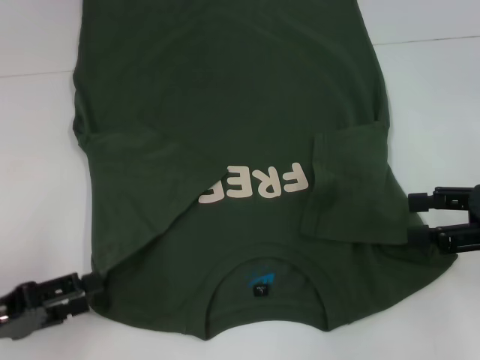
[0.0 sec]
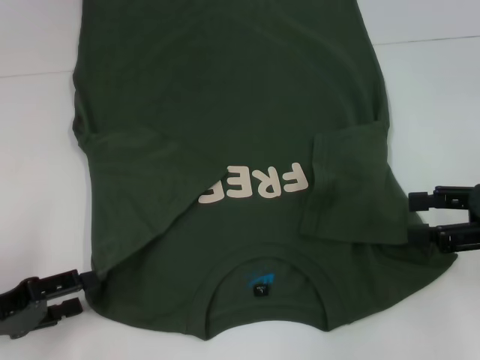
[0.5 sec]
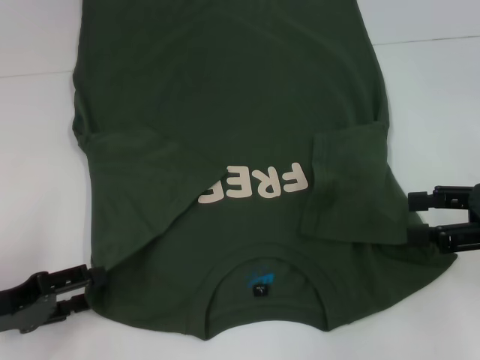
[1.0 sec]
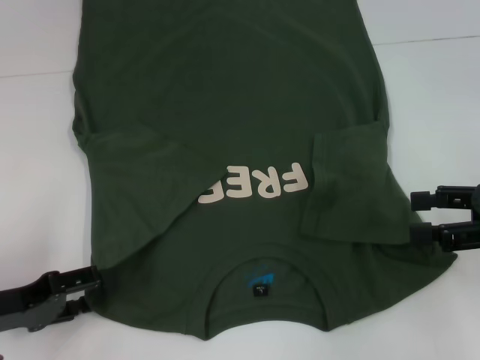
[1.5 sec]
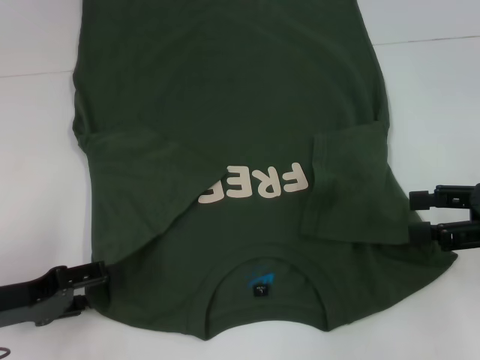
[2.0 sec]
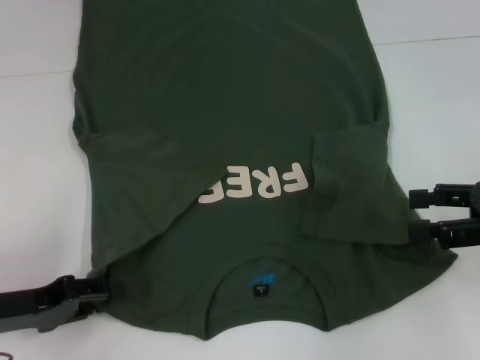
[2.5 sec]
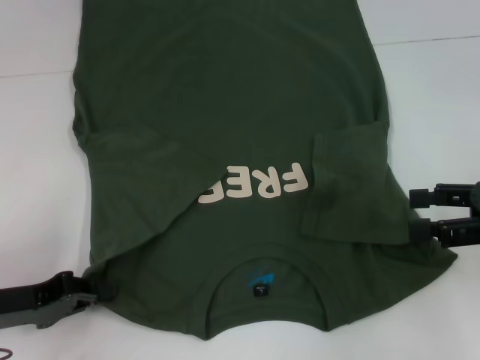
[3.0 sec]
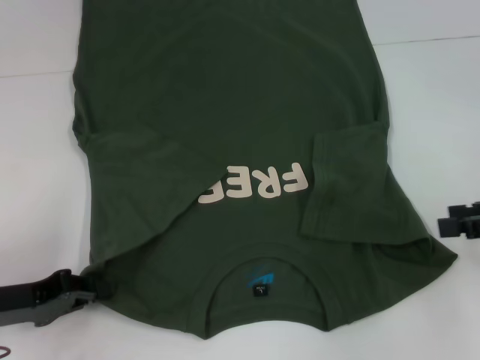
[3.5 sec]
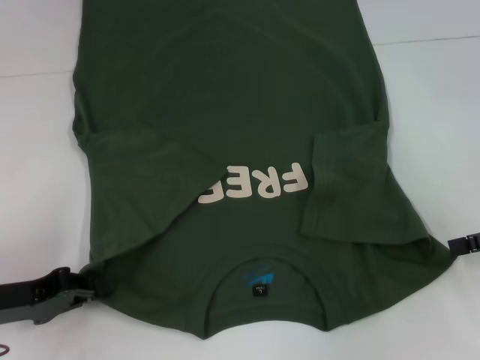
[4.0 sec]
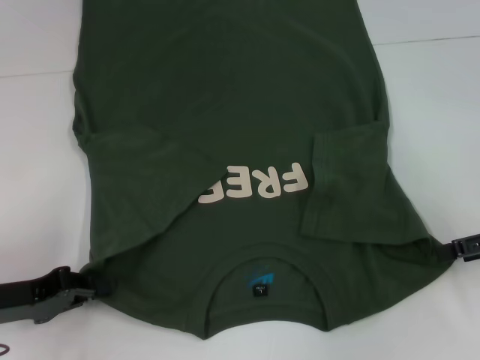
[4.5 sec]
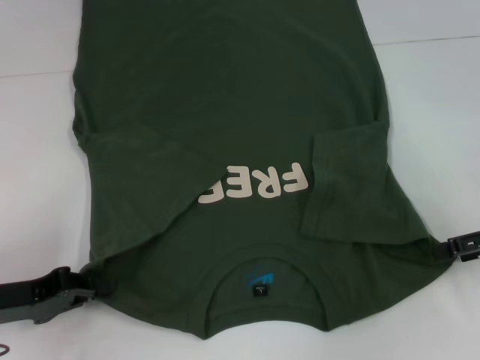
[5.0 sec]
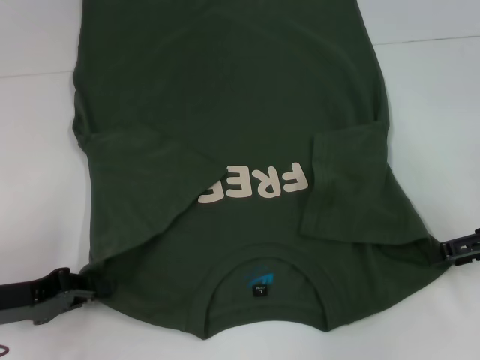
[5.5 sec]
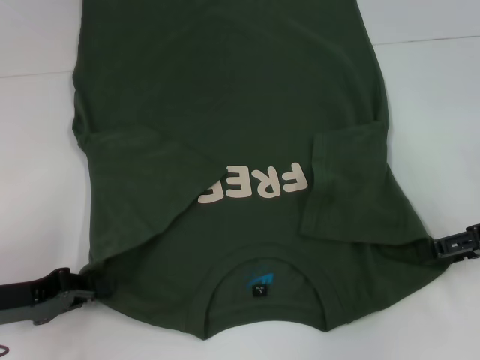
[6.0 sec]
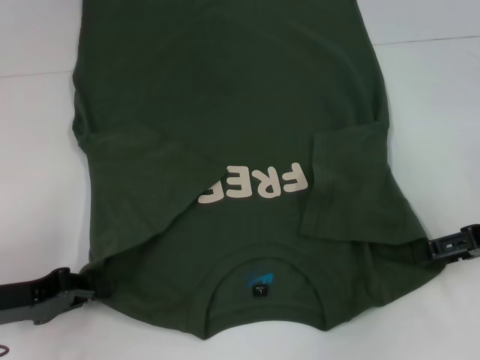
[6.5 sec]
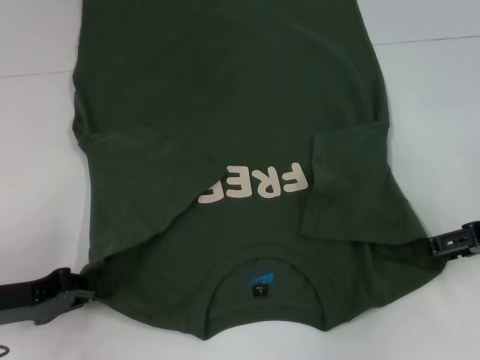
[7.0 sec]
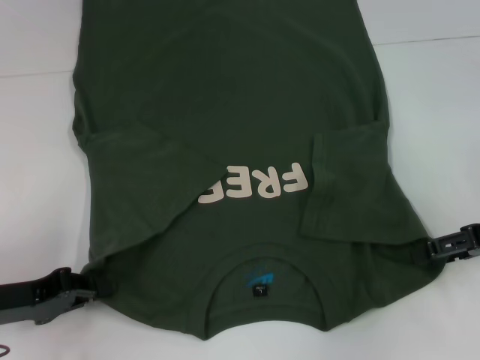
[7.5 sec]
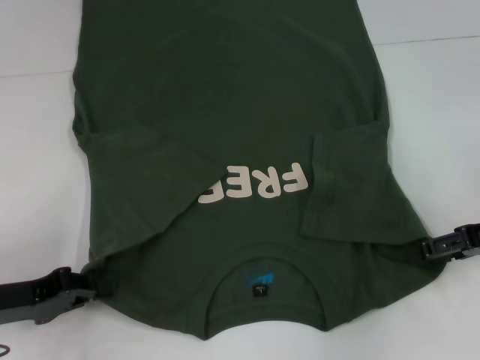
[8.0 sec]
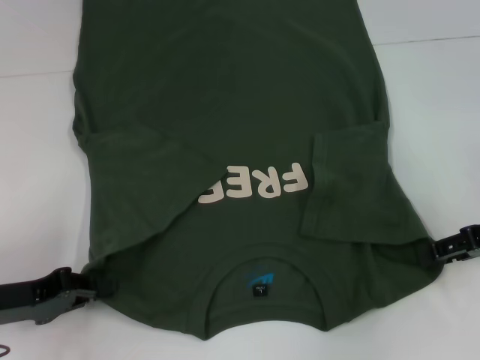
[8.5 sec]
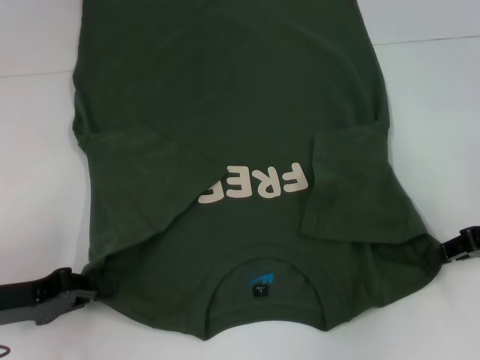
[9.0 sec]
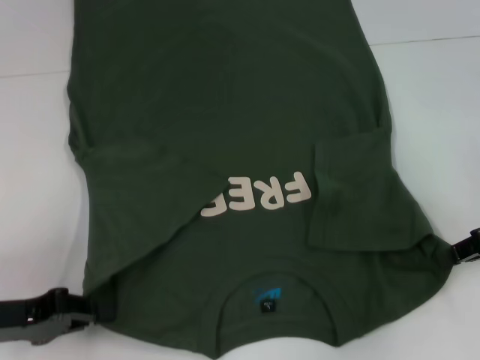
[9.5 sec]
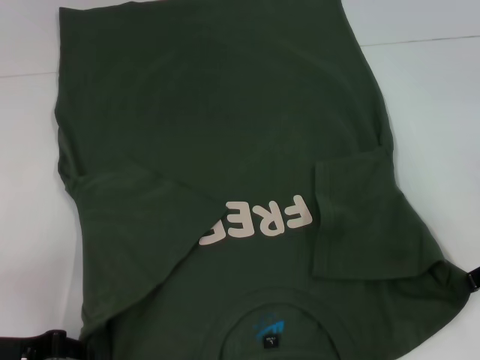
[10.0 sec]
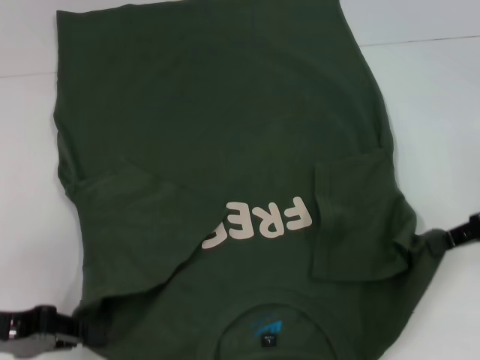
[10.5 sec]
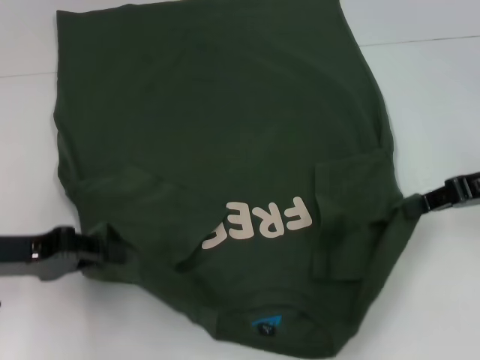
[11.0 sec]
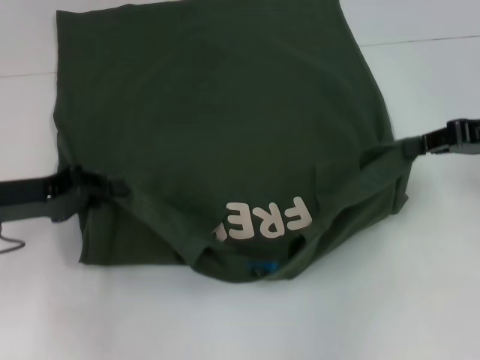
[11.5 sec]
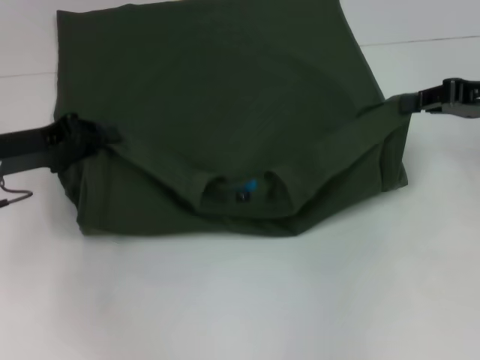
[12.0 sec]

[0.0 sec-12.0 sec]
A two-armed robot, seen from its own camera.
Step, 0.0 sec to 3.0 sec: Grab the bottom left corner with your left hand.
Step, 3.5 sec to 9.0 sec: Grab the bottom right corner with your right hand.
0.0 sec to 2.0 sec: The grippers move only a little.
2.0 sec to 4.0 sec: The left gripper closes.
6.0 sec to 8.0 sec: Both grippers stay about where they are.
8.0 sec to 10.0 sec: The right gripper closes.
10.0 sec to 12.0 sec: The left gripper moves forward, approximately 15 cm; the right gripper travels forward by about 10 cm.

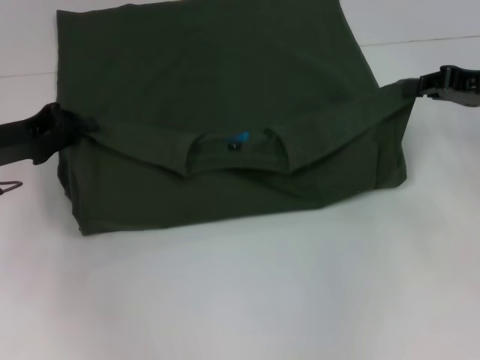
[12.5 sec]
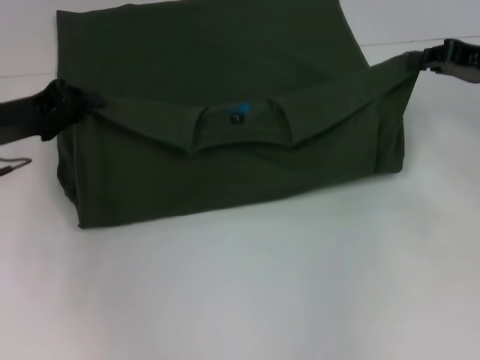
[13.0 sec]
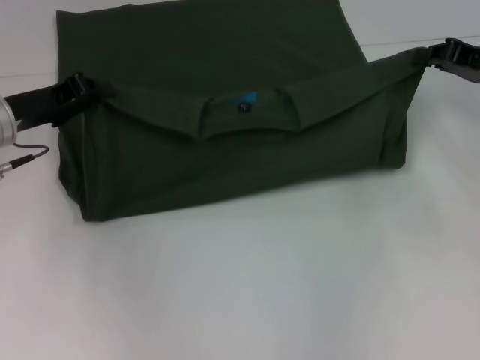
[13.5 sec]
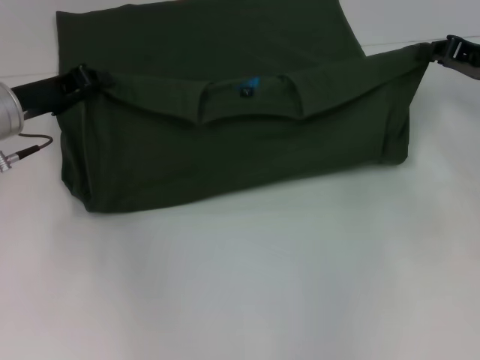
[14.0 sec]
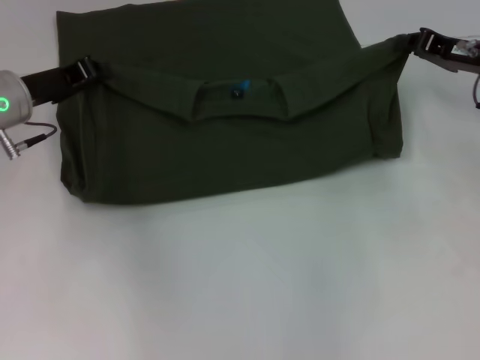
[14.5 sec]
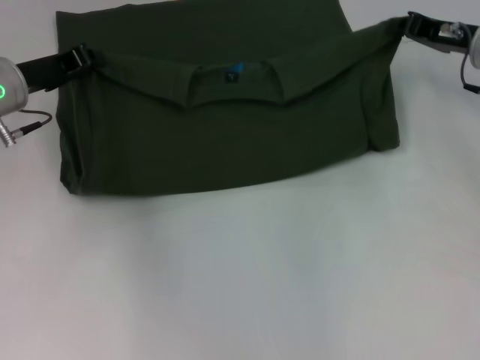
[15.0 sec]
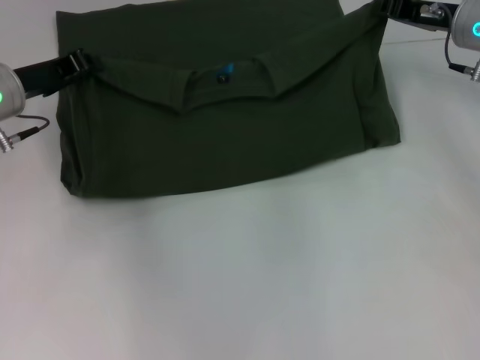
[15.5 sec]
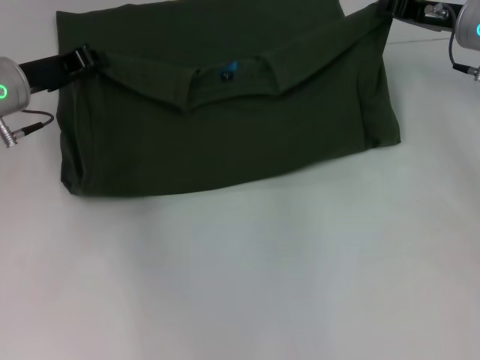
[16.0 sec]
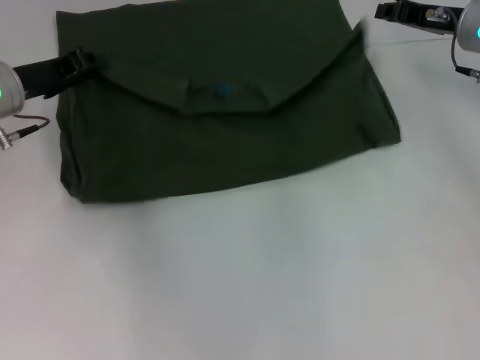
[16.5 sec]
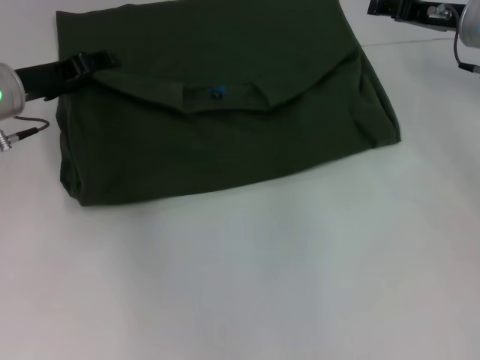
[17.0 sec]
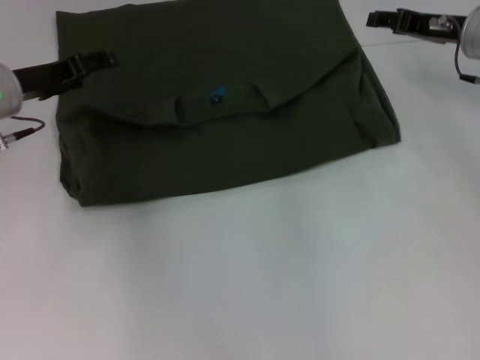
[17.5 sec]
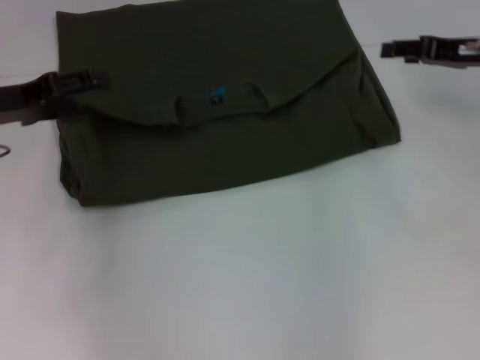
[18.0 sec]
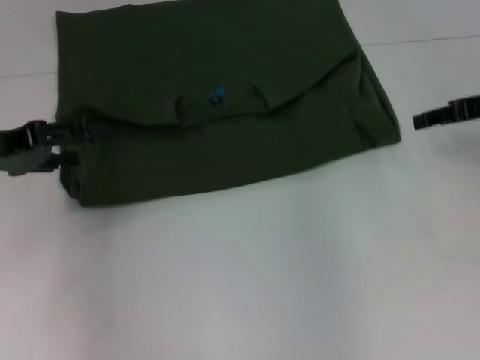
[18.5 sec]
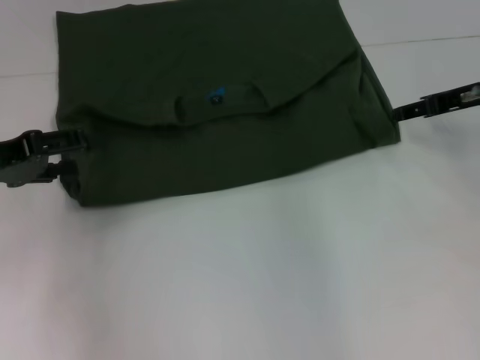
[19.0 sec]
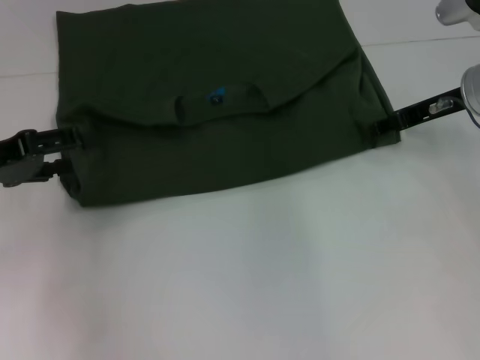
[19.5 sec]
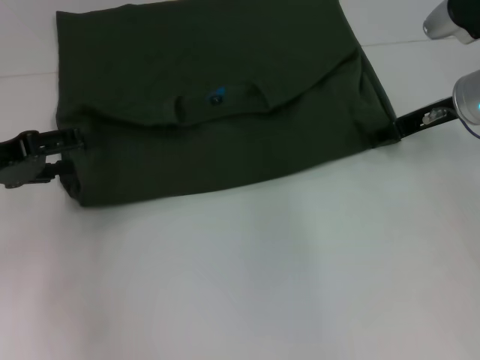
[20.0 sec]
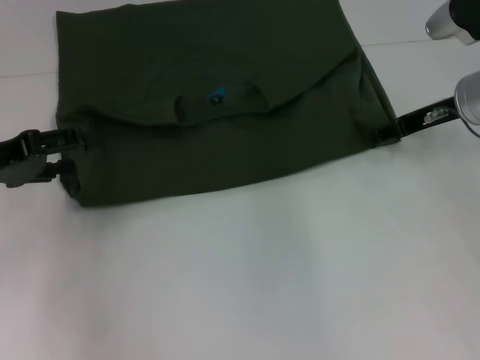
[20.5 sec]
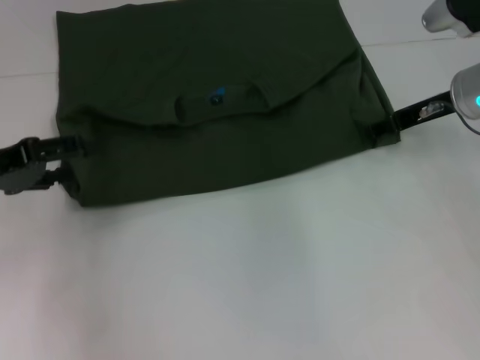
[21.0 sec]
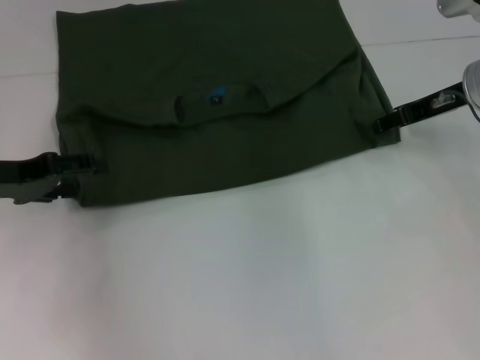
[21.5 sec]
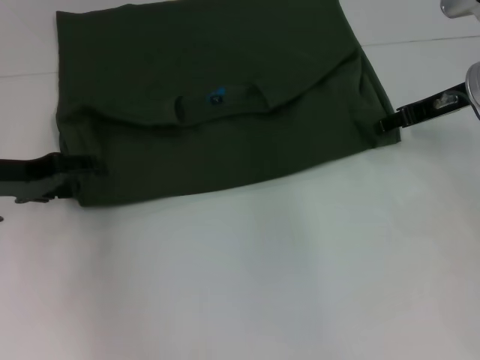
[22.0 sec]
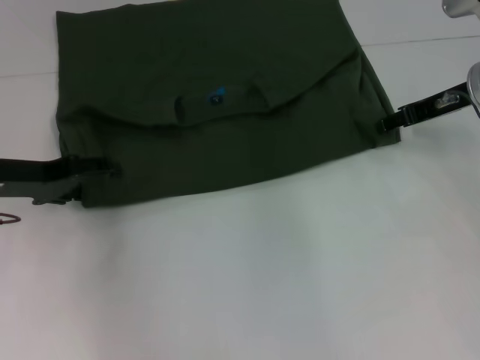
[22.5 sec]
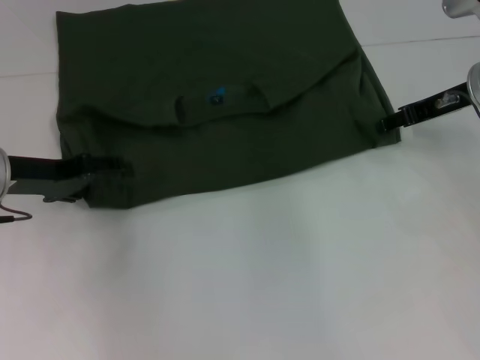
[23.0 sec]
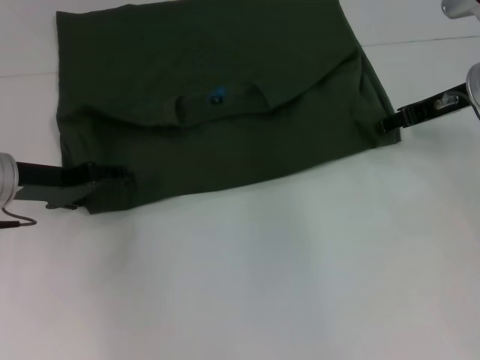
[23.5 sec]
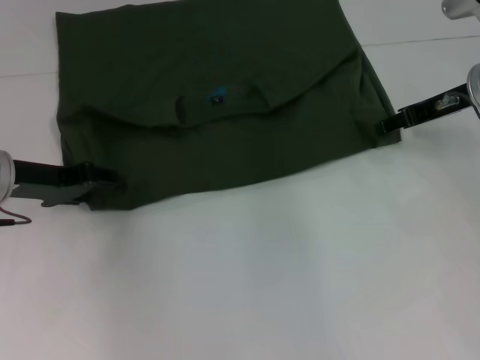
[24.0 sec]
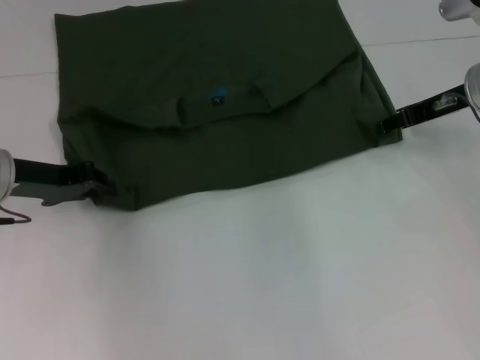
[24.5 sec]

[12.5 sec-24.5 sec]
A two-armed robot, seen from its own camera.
Step, 12.5 sec to 17.0 sec: Fold the clothes with your left hand.
Step, 12.5 sec to 17.0 sec: Fold the clothes with your right hand.
12.5 sec to 14.5 sec: The right gripper ends up roughly 5 cm from where it was; the left gripper moves forward, roughly 5 cm.
14.5 sec to 16.5 sec: The right gripper ends up approximately 5 cm from where it was.
16.5 sec to 18.5 sec: The left gripper is displaced backward and to the left by roughly 10 cm, and opens its fingers. The right gripper is displaced backward by about 5 cm, and opens its fingers.
18.5 sec to 20.5 sec: The right gripper goes about 5 cm to the left.
20.5 sec to 22.5 sec: The left gripper ends up roughly 5 cm from where it was.
22.5 sec to 24.5 sec: The left gripper closes its fingers.

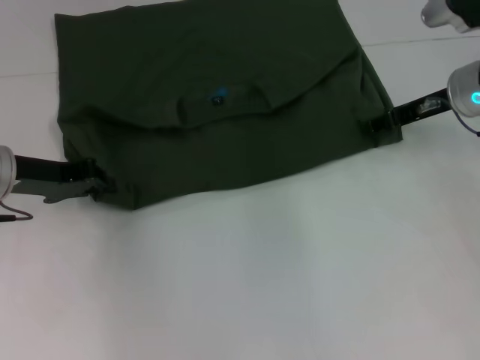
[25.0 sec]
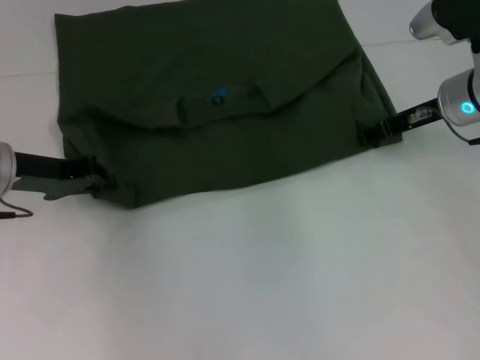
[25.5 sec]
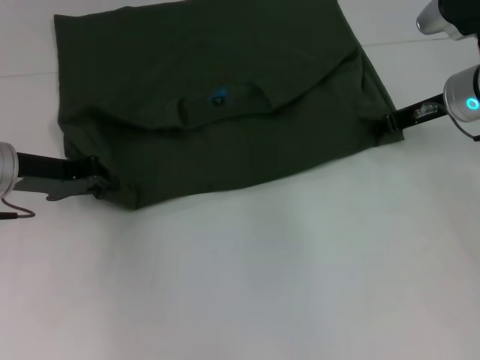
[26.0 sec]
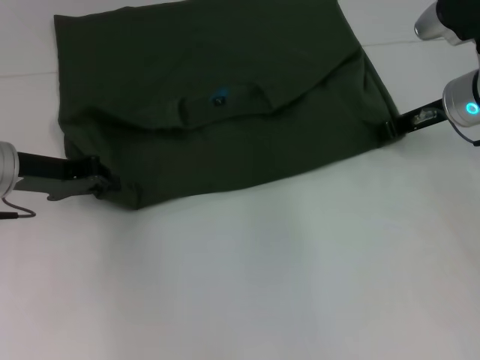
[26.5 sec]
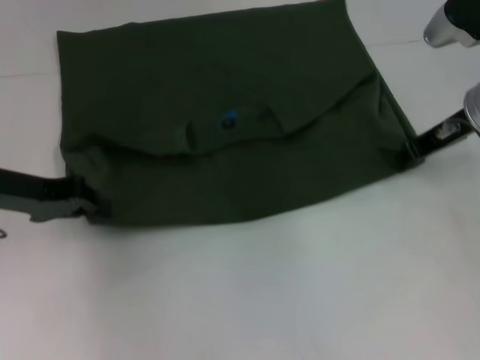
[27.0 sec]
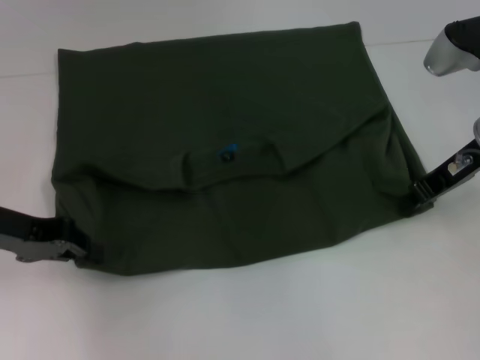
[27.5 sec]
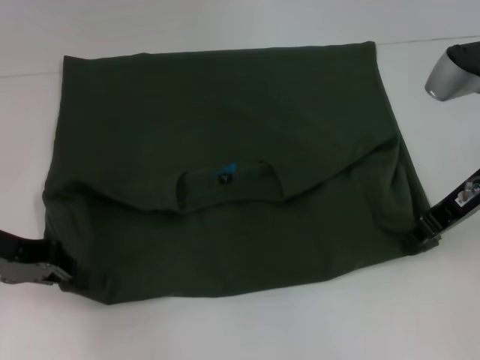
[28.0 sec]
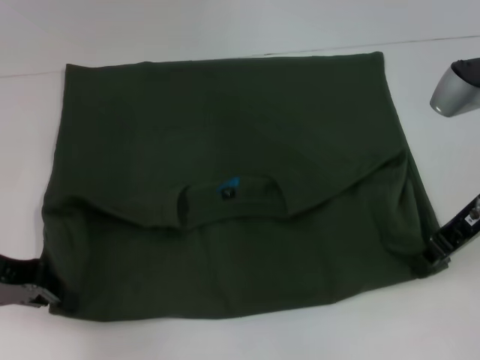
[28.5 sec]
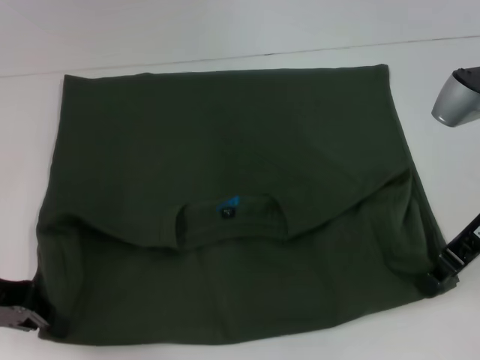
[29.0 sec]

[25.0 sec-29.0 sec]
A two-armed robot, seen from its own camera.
Step, 25.0 sec to 29.0 sec: Pull the clothes with your left hand.
Step, 25.0 sec to 29.0 sec: Pull the clothes with your right hand.
25.0 sec to 27.0 sec: The right gripper closes.
27.0 sec to 29.0 sec: The grippers both shift backward by some 5 cm.
